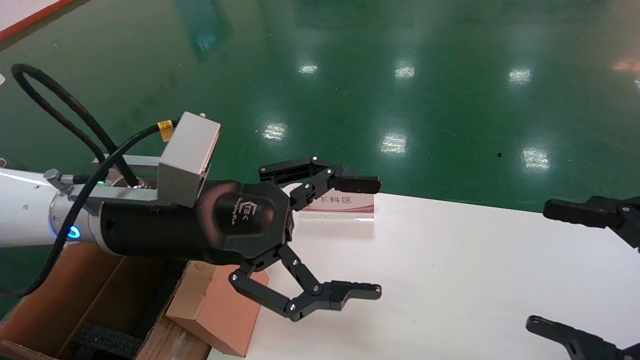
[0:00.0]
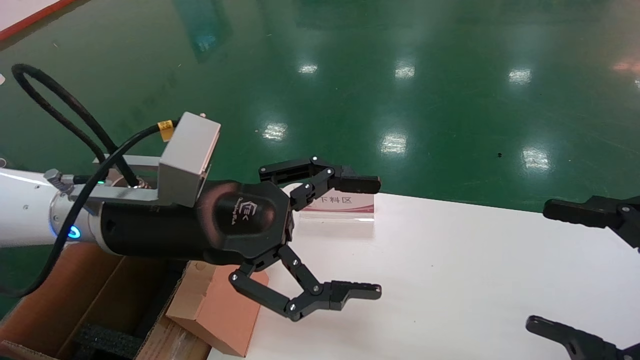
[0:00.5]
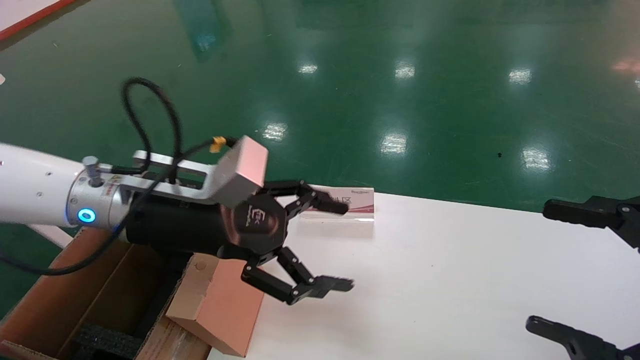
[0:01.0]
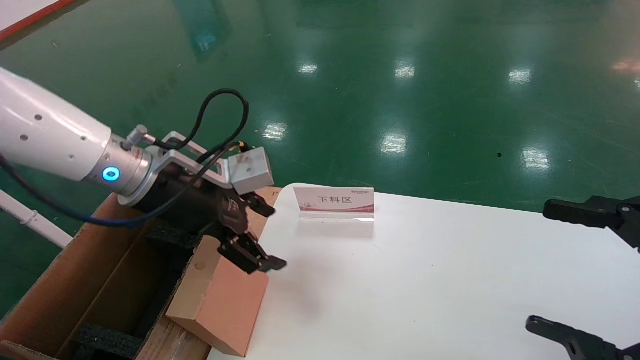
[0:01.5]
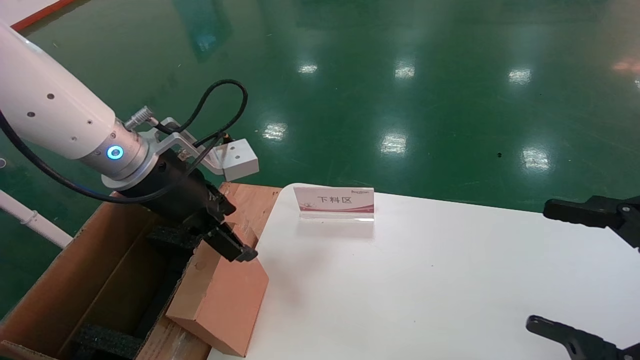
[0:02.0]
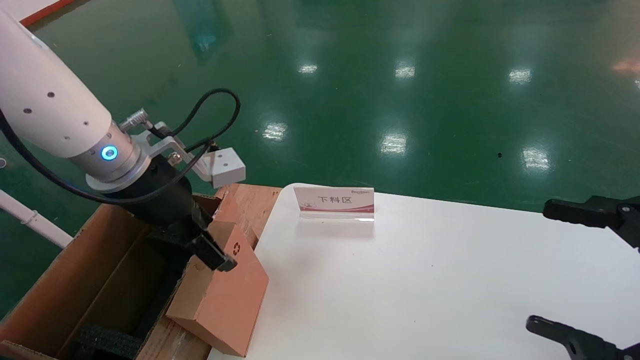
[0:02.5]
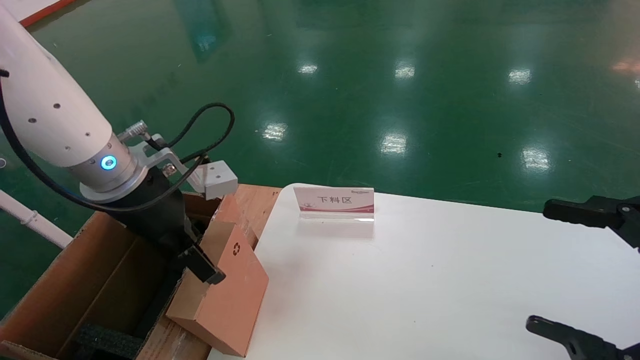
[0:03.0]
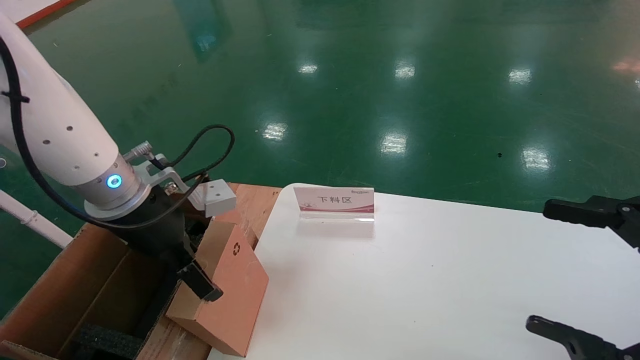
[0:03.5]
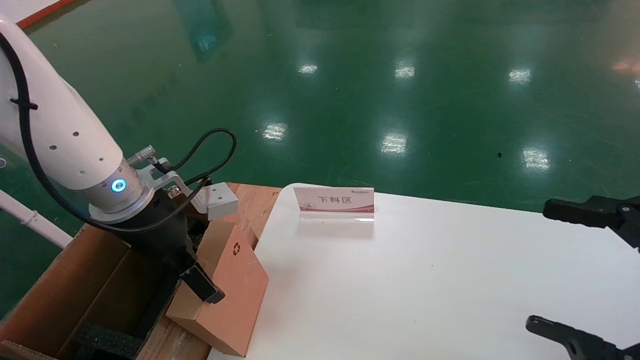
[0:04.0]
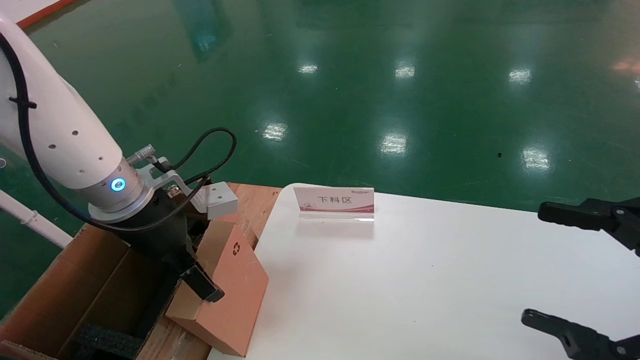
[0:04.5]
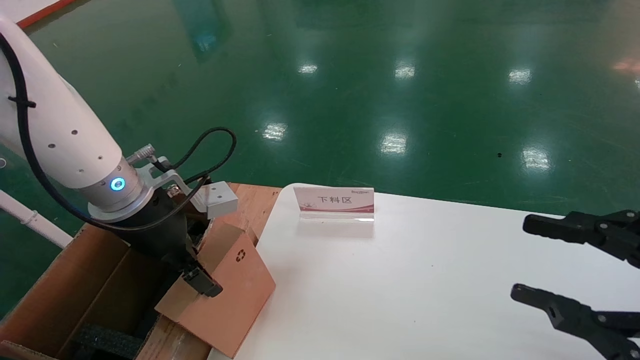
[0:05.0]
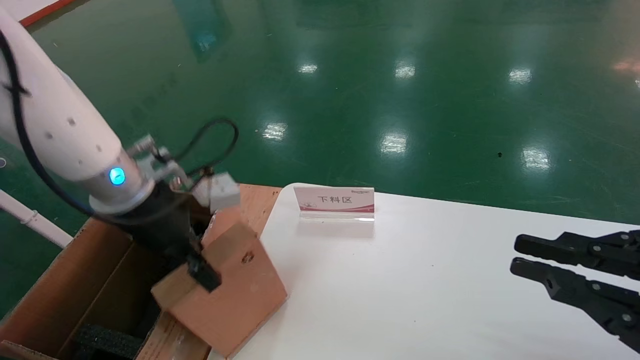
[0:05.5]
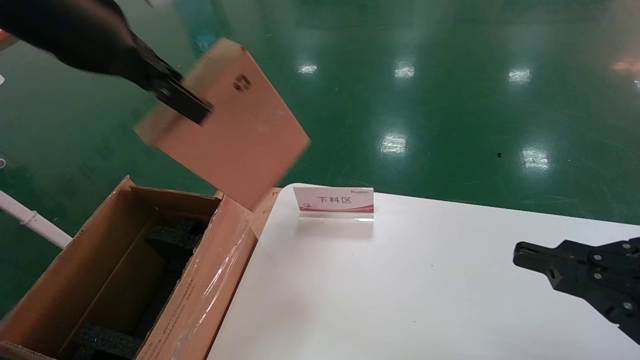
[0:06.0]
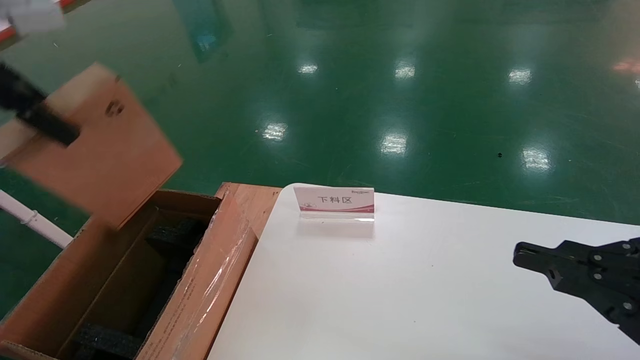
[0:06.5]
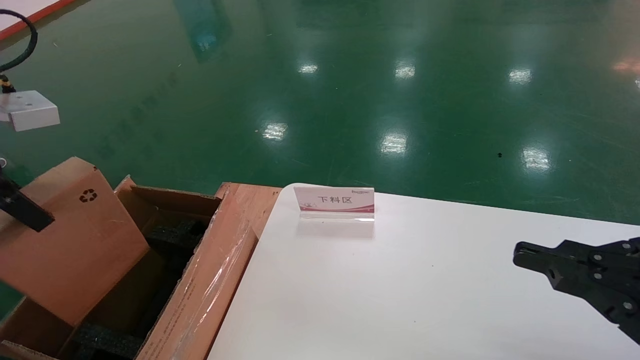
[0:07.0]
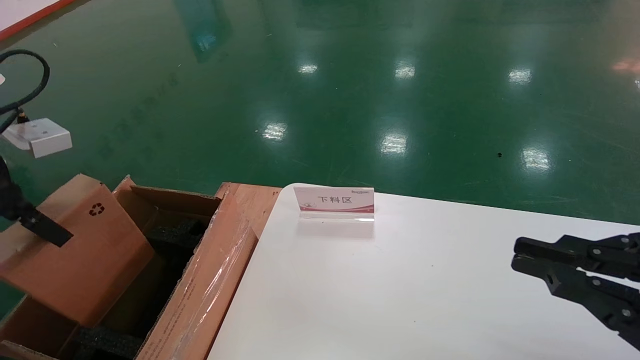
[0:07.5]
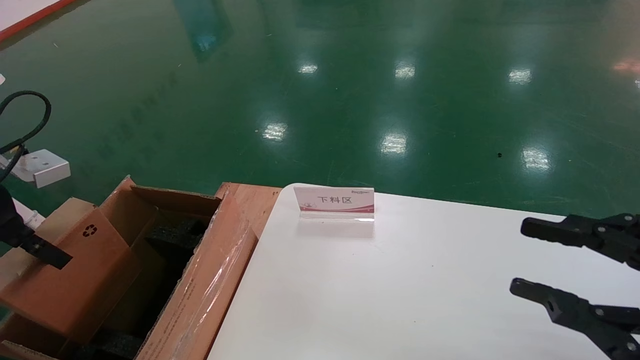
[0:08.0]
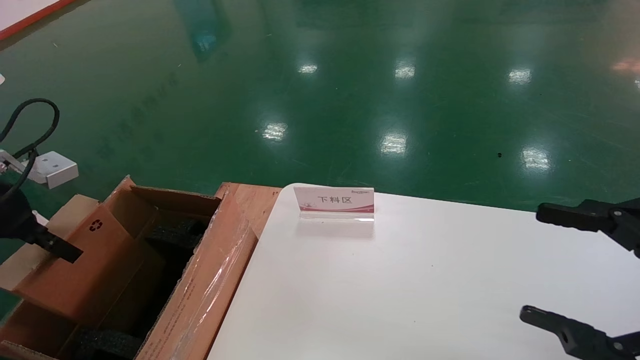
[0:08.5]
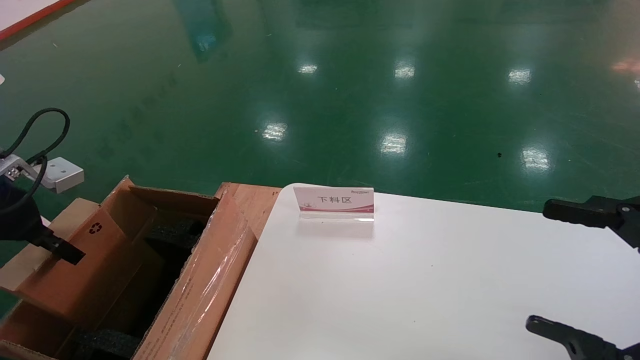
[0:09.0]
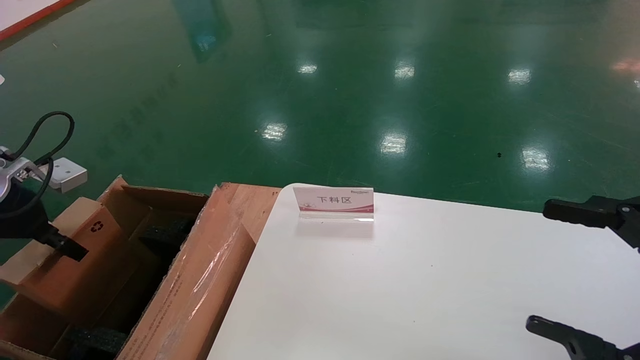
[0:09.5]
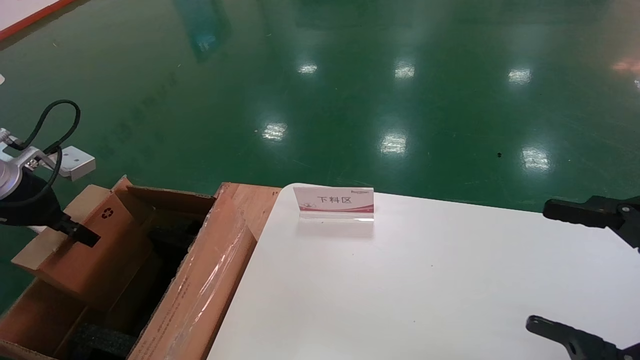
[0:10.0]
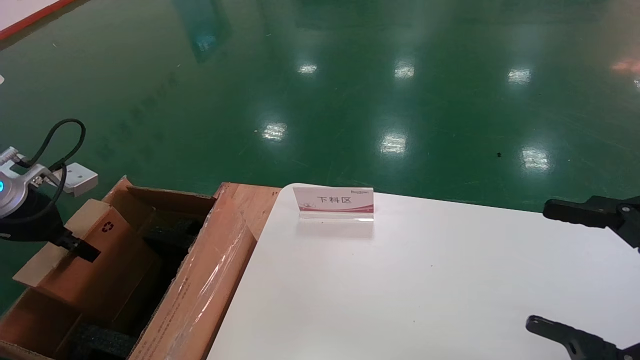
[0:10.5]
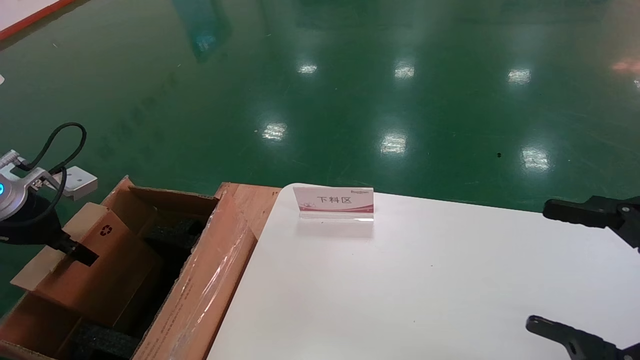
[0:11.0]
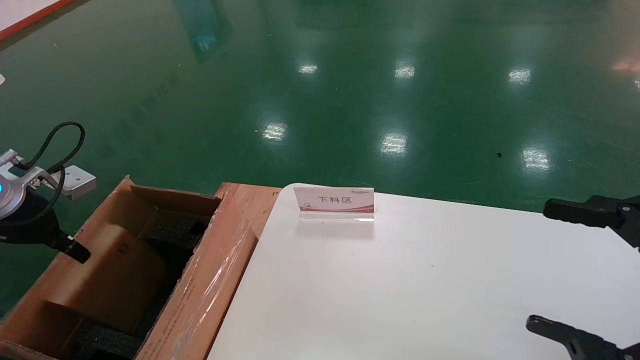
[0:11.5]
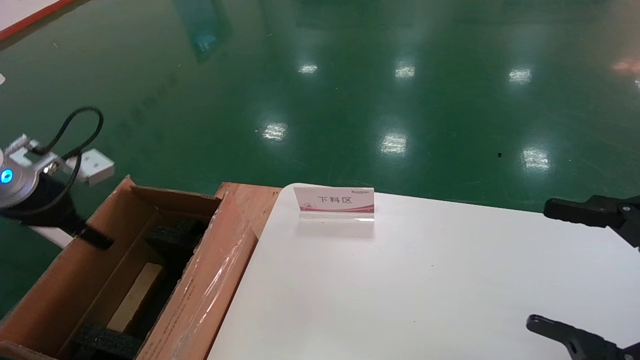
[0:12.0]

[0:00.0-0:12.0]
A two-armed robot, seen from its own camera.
Task of the whole recording: pick up the small cardboard box and load it into the large cardboard box.
Step, 0:01.0 to 0:05.5: Pick up the mouse and power cord box.
Step, 0:06.0 to 0:11.5: Place the mouse and power cord box into the case.
0:00.0 to 0:02.0: The left gripper travels forward by about 5 cm.
0:02.0 to 0:04.0: The grippers make only small movements.
0:04.0 to 0:06.0: The right gripper closes. Meanwhile the left gripper moves upward, about 20 cm, and closes up.
0:06.0 to 0:08.0: The left gripper goes some 20 cm downward and to the left.
0:08.0 to 0:10.0: The right gripper opens up; the left gripper heads forward, covering about 5 cm.
0:10.0 to 0:12.0: The left gripper opens its fingers.

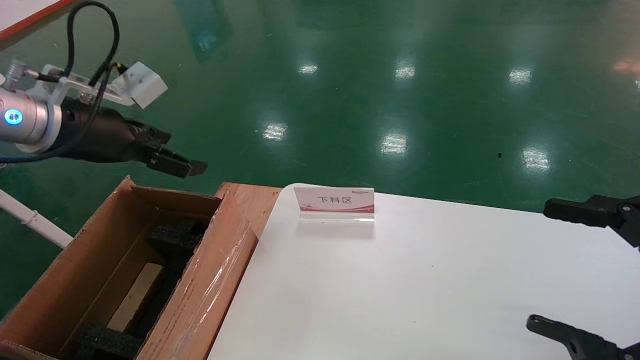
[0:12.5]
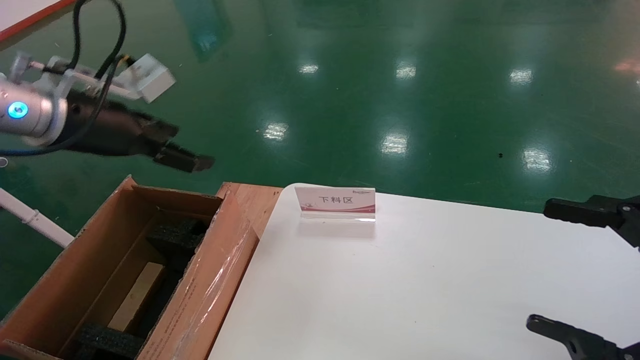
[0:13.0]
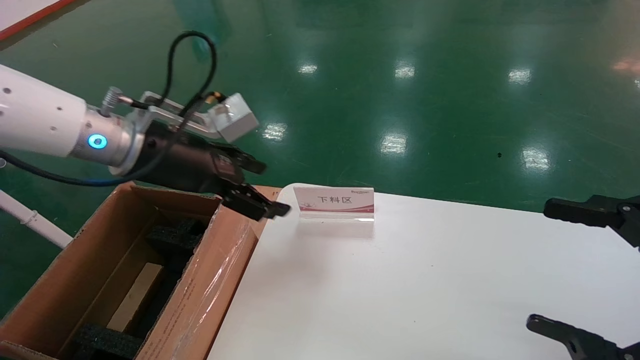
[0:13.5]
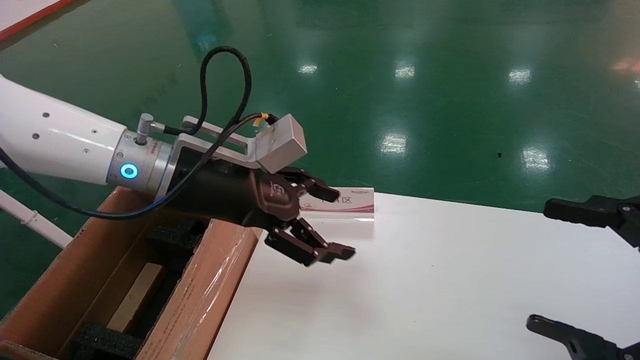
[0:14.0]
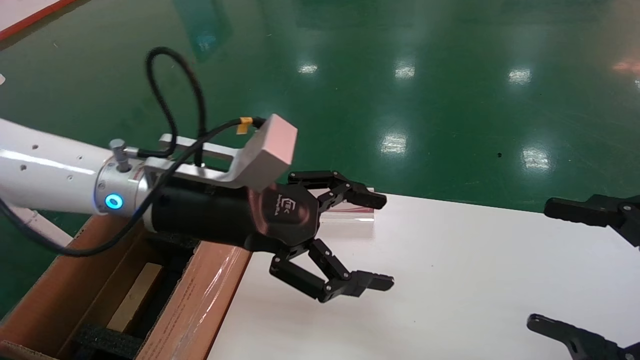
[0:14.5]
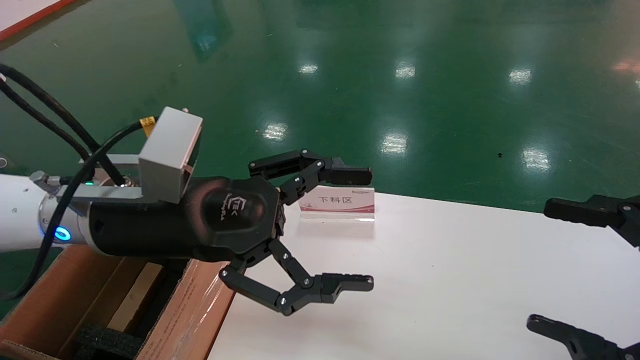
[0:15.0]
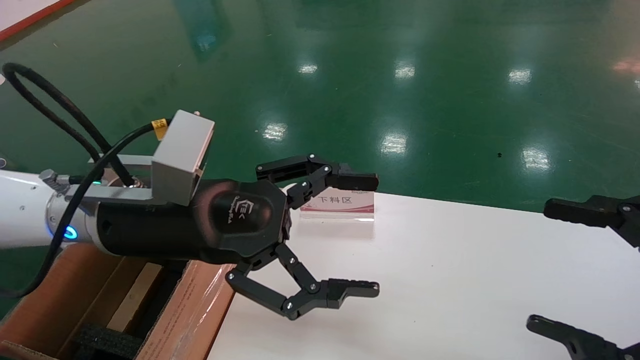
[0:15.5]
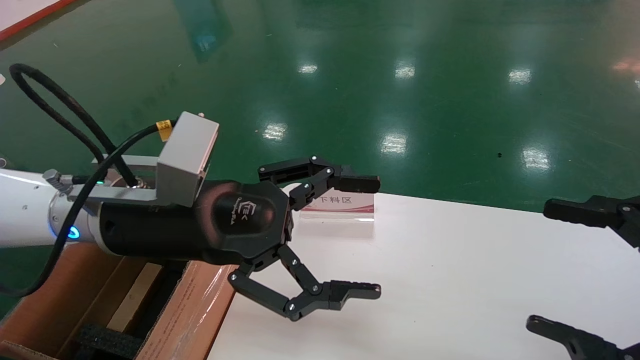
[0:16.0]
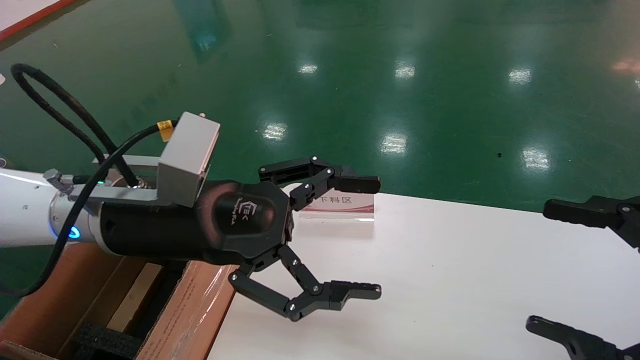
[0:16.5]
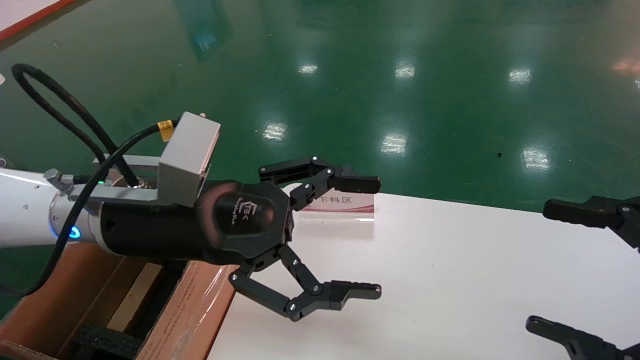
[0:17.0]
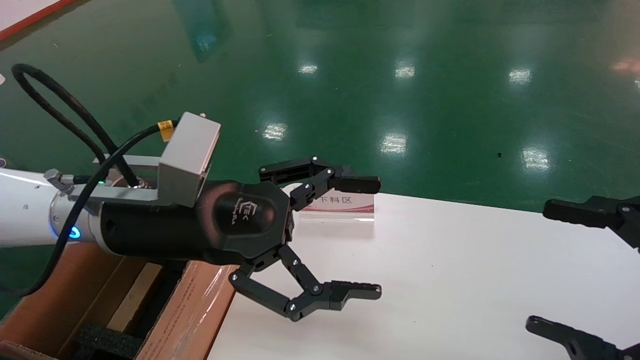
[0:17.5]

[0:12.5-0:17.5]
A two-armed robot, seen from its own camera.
Task of the whole recording: pick up the small cardboard box and load it into the large cardboard box.
0:12.5 to 0:15.0: The left gripper travels to the right by approximately 15 cm.
0:15.0 to 0:17.5: Both grippers stay about where they are.
